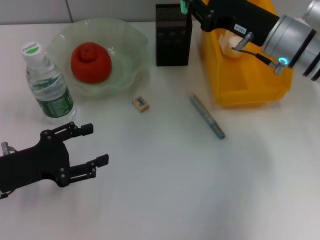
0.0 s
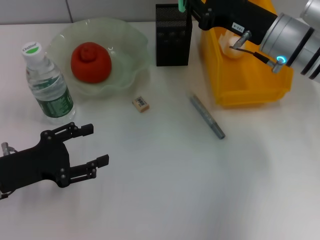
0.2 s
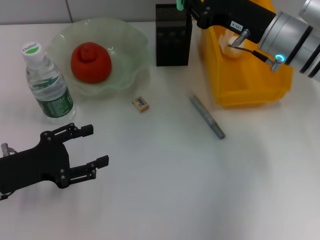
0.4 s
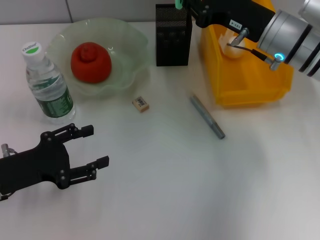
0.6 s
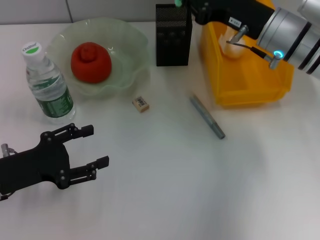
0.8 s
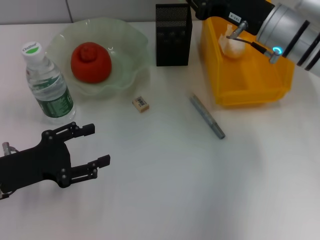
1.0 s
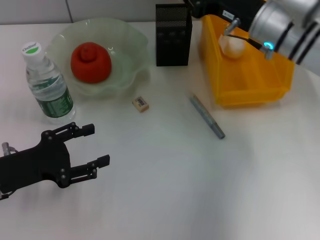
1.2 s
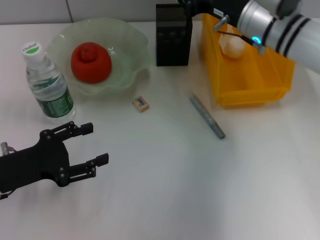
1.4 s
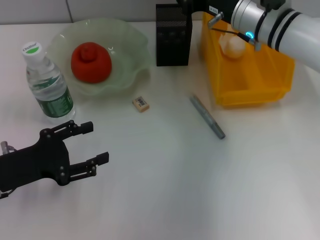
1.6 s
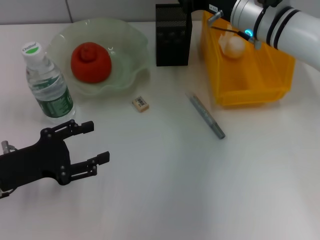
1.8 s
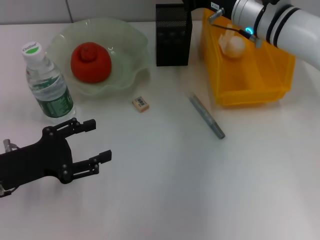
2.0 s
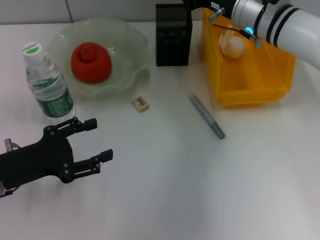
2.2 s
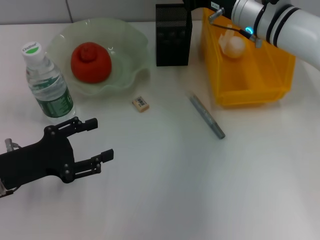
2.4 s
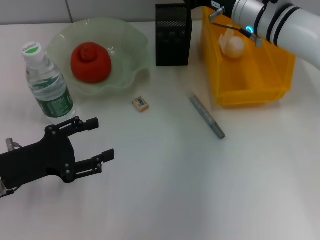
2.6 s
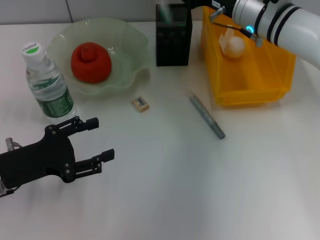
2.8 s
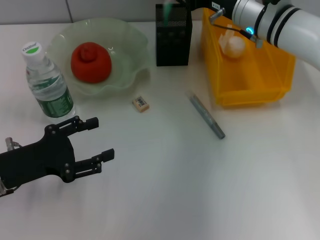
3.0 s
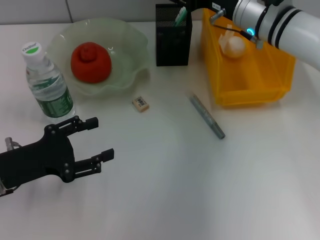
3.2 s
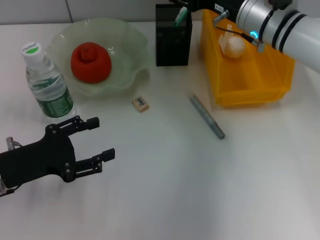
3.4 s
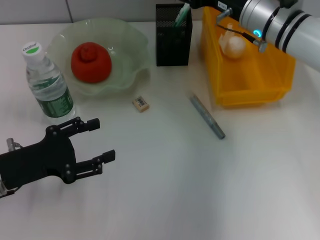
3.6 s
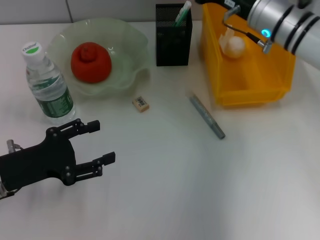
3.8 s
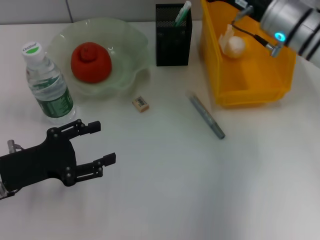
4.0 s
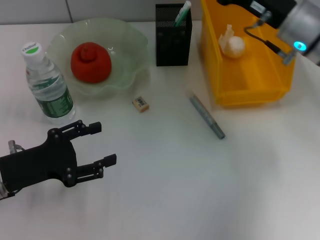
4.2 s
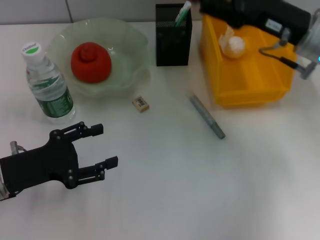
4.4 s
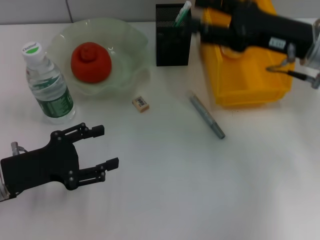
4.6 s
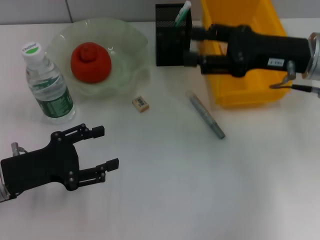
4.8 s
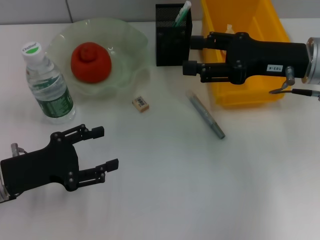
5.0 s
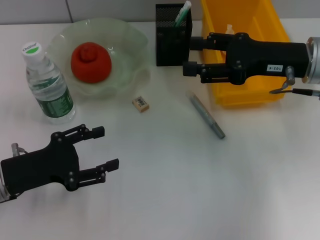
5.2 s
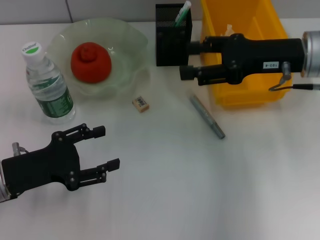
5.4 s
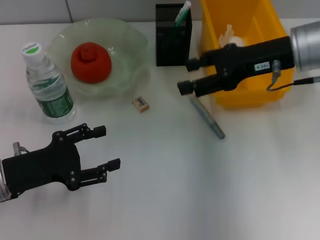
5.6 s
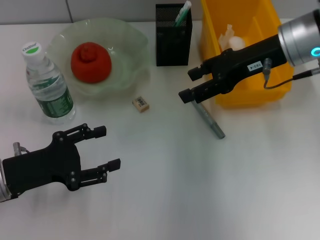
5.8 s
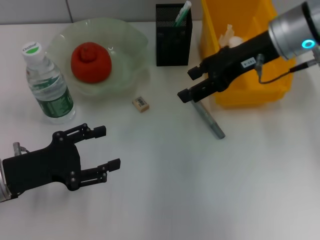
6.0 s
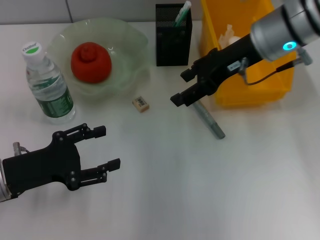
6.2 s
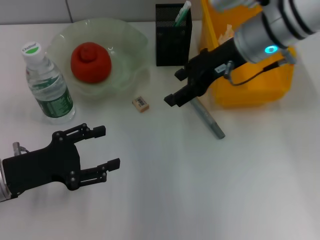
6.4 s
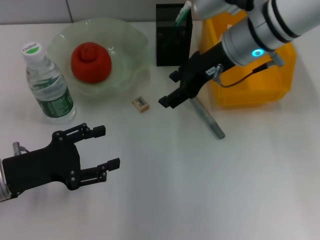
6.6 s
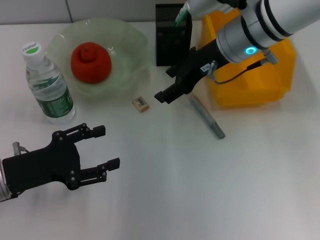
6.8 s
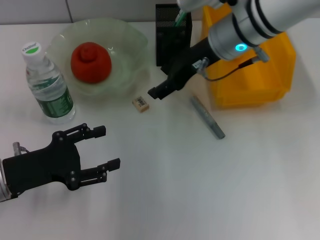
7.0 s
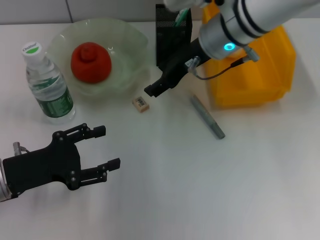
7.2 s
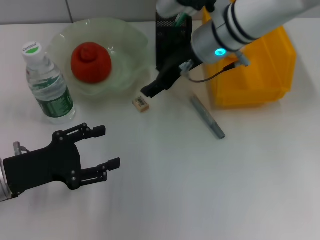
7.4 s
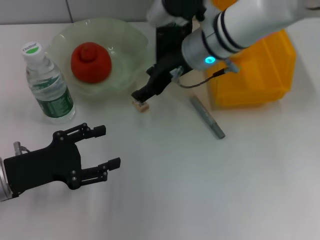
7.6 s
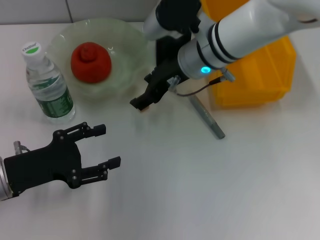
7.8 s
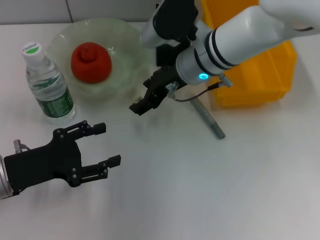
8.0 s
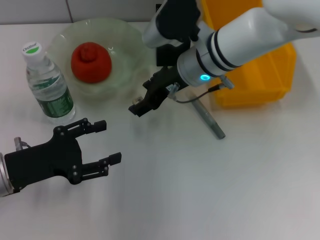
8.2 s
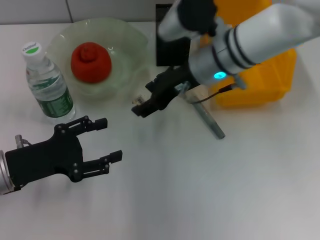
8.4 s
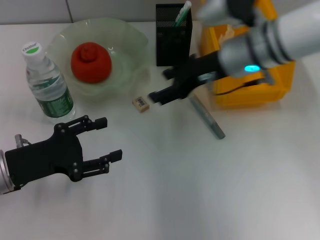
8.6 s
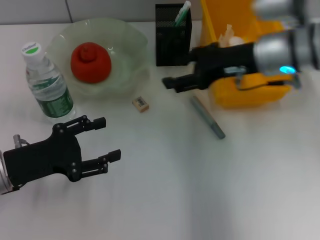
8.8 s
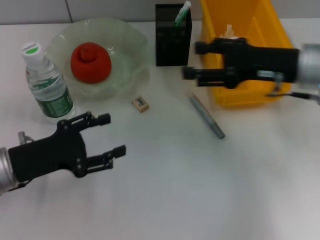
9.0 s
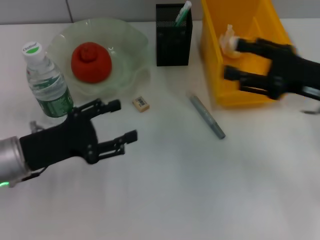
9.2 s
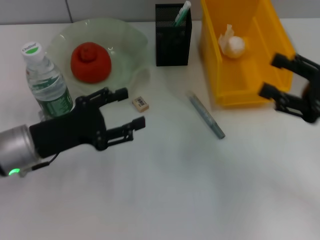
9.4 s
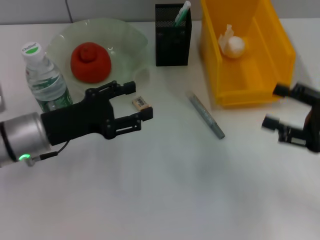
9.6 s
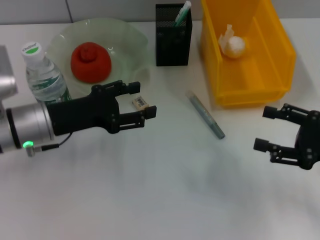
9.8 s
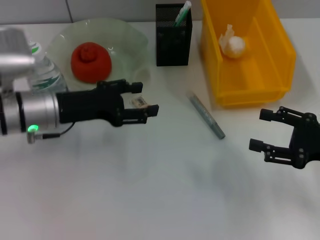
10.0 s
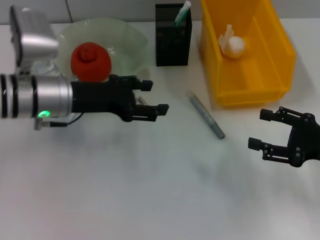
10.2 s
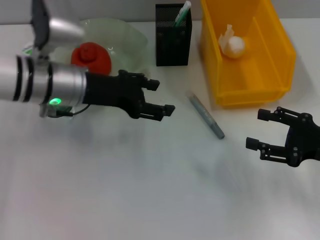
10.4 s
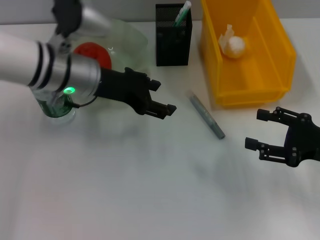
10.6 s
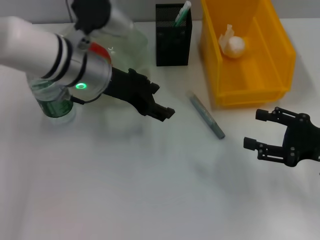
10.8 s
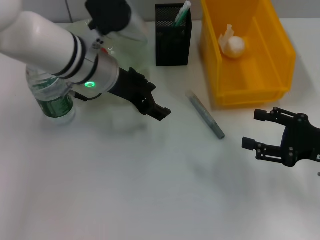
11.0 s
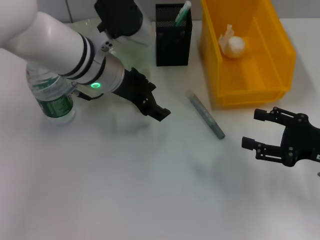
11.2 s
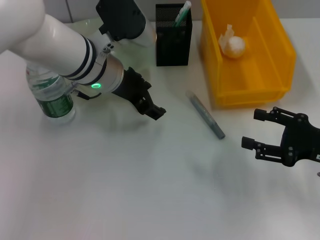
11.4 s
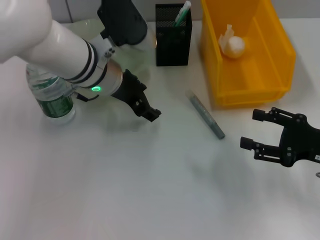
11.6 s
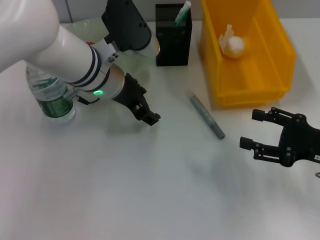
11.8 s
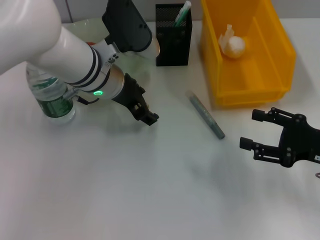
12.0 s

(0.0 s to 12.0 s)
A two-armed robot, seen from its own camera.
Step, 0.0 s - 2.8 s: Place the blue utility knife into the pen holder with the right hand.
0.0 s - 1.6 s: The right gripper shifts some 5 cm forward.
1.6 s - 3.0 s: The right gripper opens its fingers.
3.0 s - 4.4 s: The right gripper shifts about 10 cm backward and to the right, and opens its fingers.
4.4 s - 6.0 s: The right gripper shifts by some 5 cm.
6.0 s - 7.6 s: The right gripper shifts roughly 10 cm to the left.
7.6 s - 9.0 s: The right gripper travels to the right and backward by about 15 cm.
9.0 s - 10.4 s: The right gripper heads backward, to the right and downward, covering about 15 cm, while the left gripper heads forward, to the right and upward, covering roughly 15 cm.
10.4 s - 12.0 s: The left gripper heads to the right, covering approximately 5 cm.

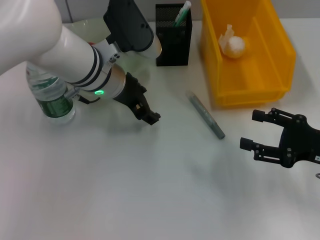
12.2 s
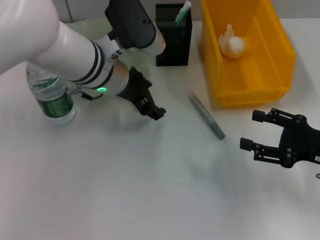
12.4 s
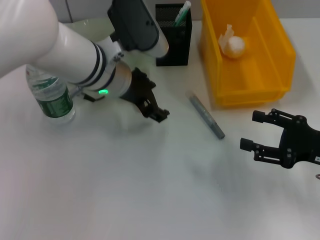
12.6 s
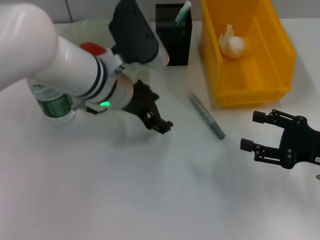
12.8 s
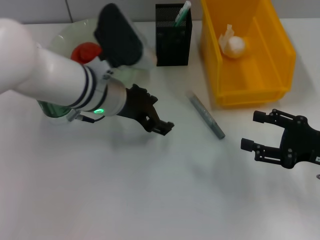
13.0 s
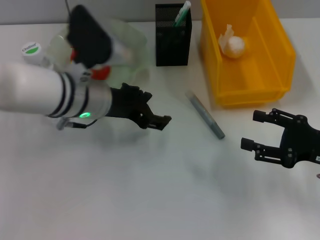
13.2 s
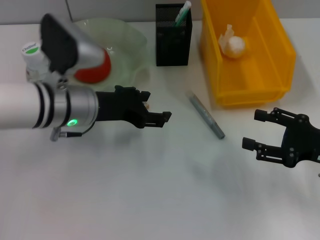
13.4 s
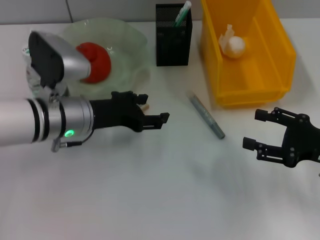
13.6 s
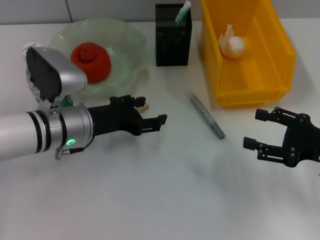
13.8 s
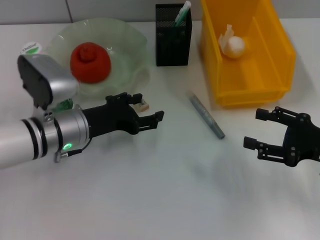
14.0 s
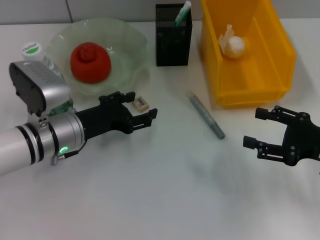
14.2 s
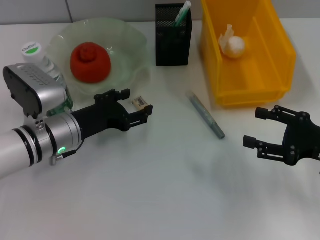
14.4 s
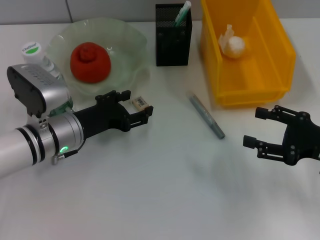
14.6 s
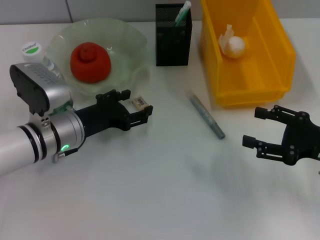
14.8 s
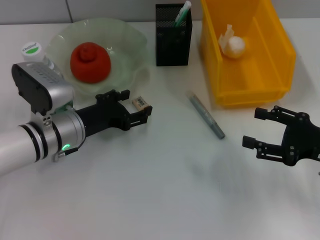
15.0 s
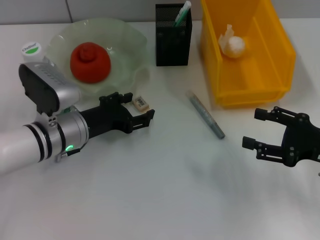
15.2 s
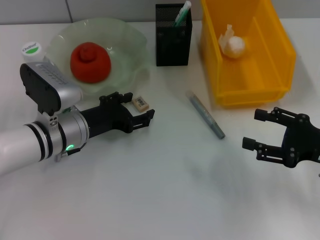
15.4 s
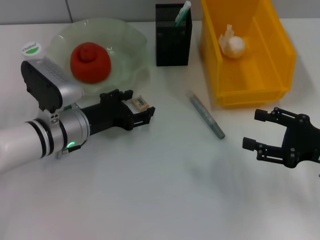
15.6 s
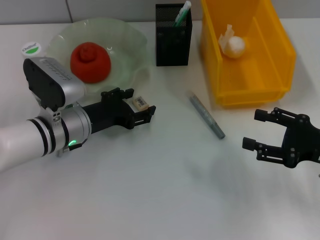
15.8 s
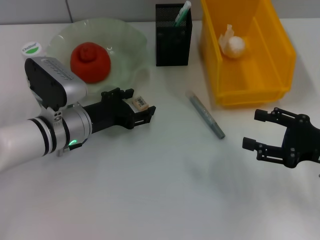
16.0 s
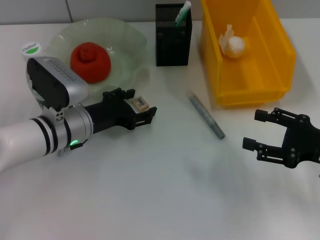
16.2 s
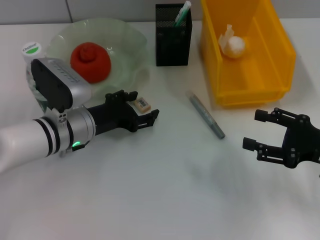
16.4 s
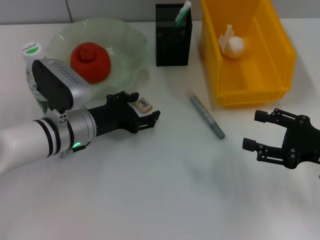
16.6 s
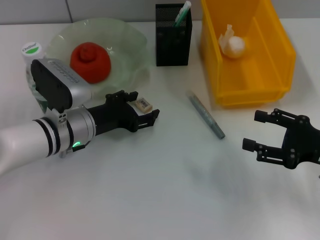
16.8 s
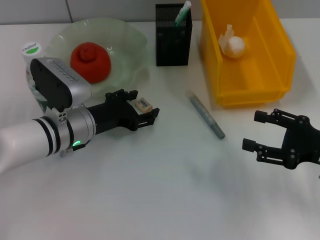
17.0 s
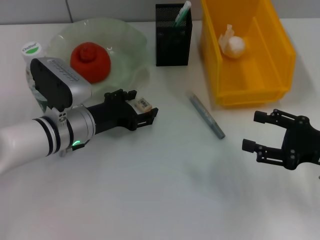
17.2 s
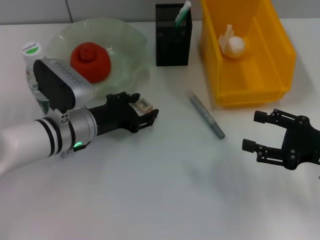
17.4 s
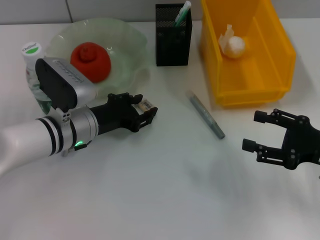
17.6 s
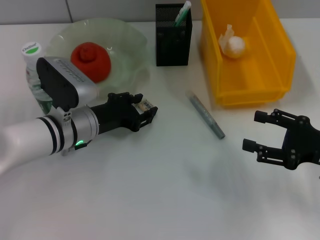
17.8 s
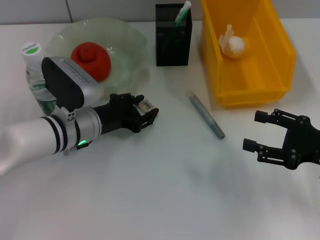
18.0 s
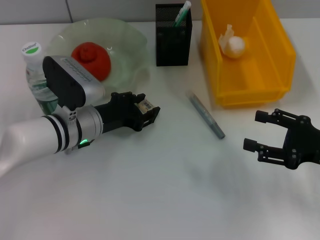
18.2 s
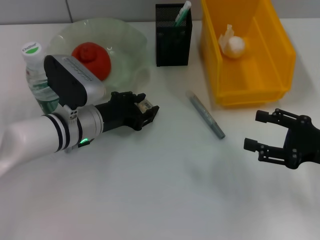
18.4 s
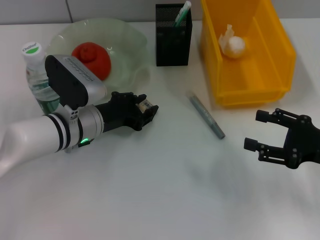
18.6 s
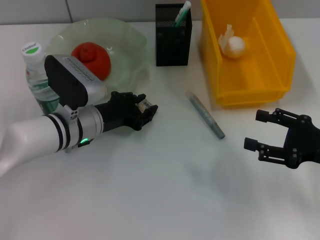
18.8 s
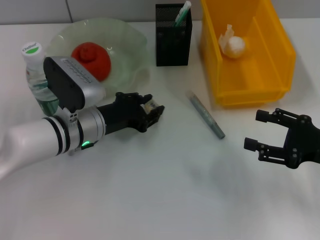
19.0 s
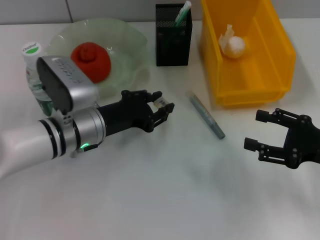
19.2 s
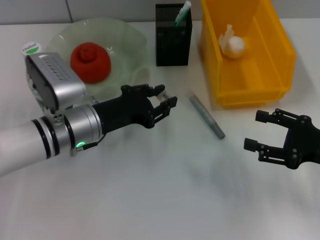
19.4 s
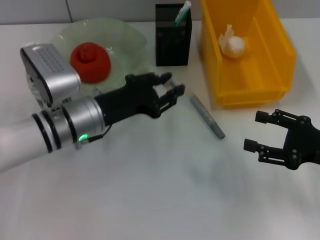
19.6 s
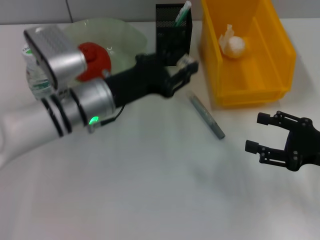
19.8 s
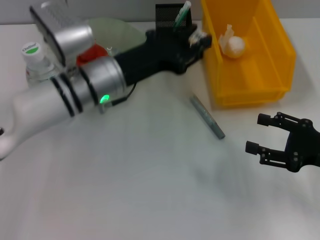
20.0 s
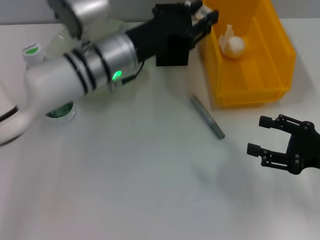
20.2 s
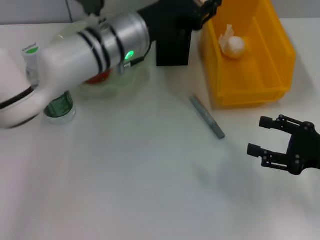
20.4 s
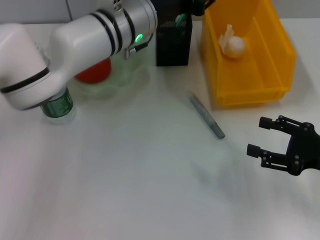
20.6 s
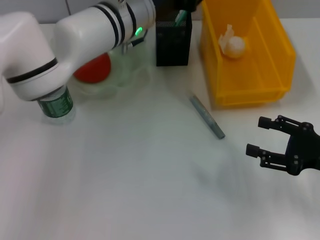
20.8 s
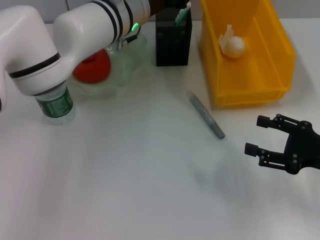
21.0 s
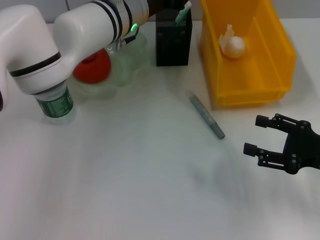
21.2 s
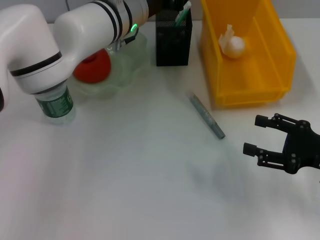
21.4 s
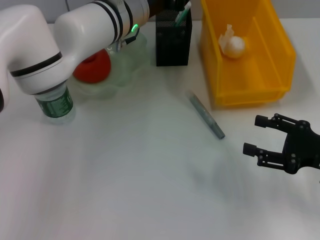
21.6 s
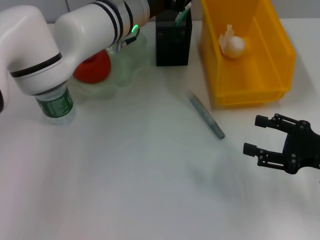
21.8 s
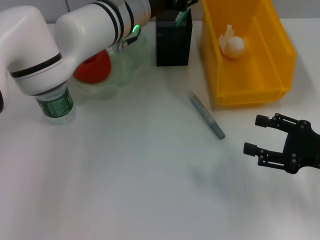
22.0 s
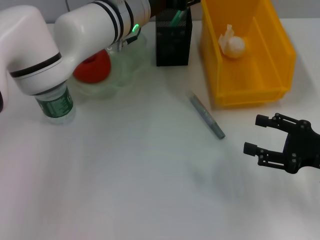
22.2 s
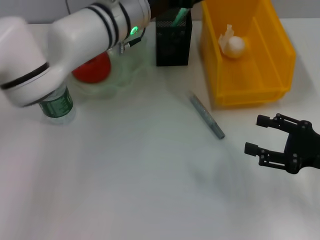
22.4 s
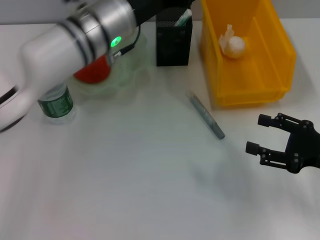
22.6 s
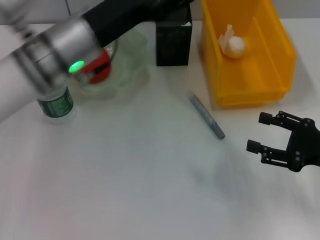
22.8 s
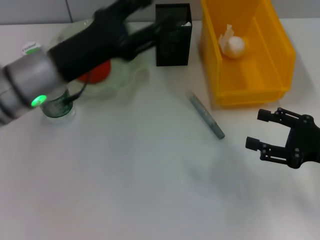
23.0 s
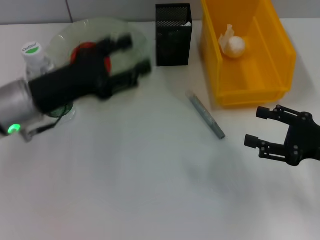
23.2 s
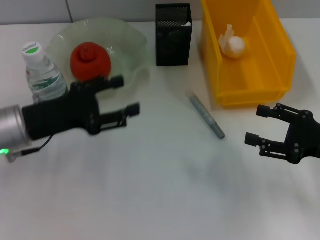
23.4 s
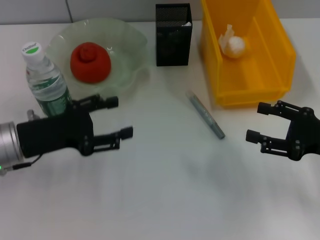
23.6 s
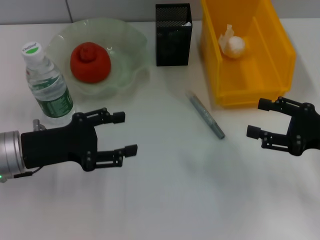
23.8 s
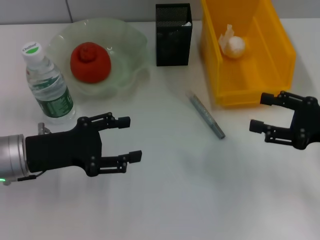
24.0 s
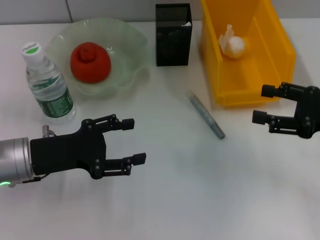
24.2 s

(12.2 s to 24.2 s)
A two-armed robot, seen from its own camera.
Step, 12.2 s - 18.6 s: Grab the eraser with the left hand.
Step, 18.8 s - 22.6 s: Place the eraser into the pen holder with the left hand.
12.2 s - 13.8 s: The left gripper is displaced to the left, downward and backward by roughly 10 cm.
13.8 s - 15.2 s: The grippers make only small movements.
15.2 s - 16.6 s: The two grippers keep their place.
16.6 s - 18.2 s: The left gripper closes its fingers.
18.2 s - 19.8 s: The left gripper moves upward, some 5 cm.
19.8 s - 21.2 s: The left gripper travels forward, upward and to the right by some 15 cm.
21.2 s - 22.6 s: The left gripper opens its fingers.
22.6 s - 24.2 s: The left gripper goes about 20 cm to the left, backward and downward. The right gripper shifts by some 5 cm.
